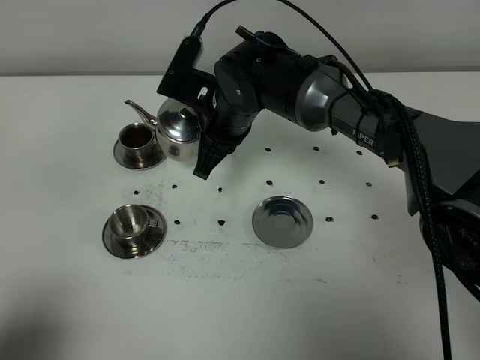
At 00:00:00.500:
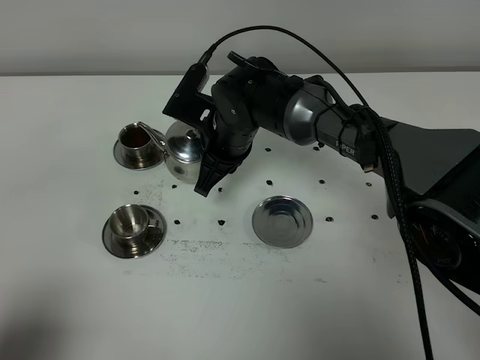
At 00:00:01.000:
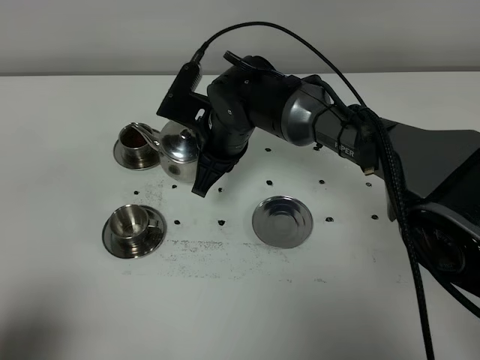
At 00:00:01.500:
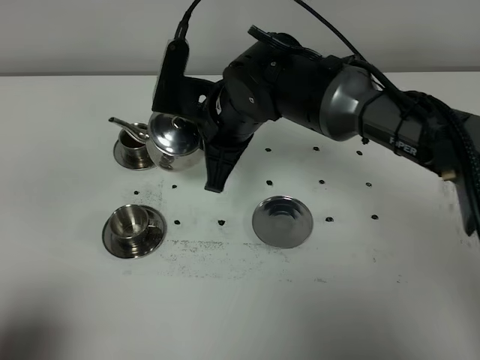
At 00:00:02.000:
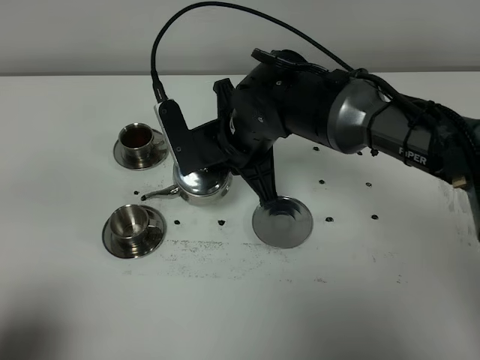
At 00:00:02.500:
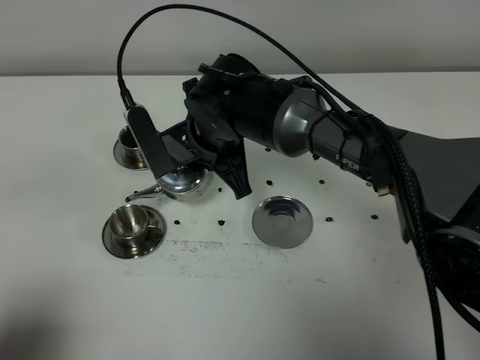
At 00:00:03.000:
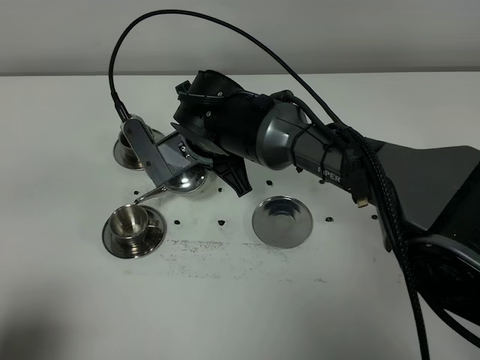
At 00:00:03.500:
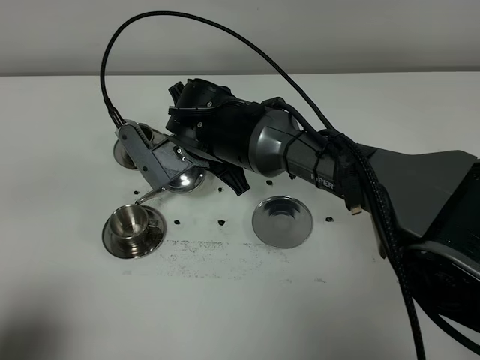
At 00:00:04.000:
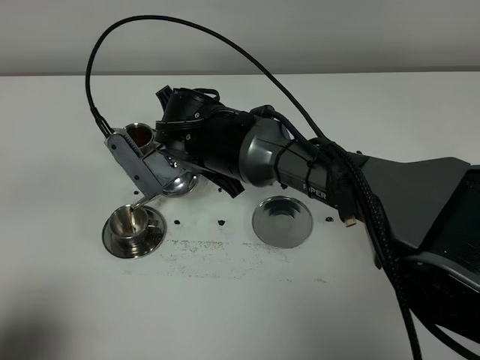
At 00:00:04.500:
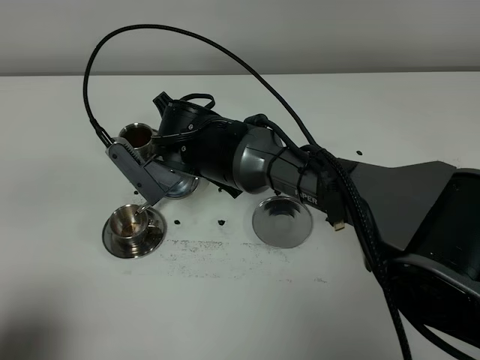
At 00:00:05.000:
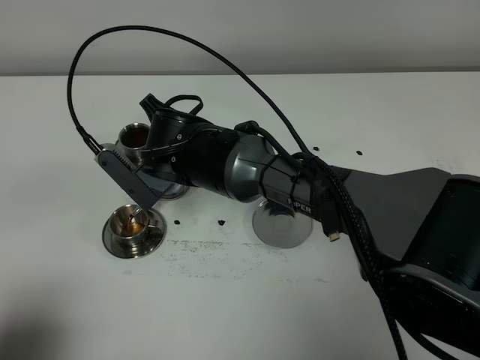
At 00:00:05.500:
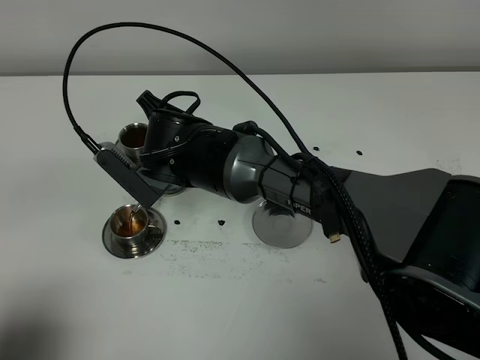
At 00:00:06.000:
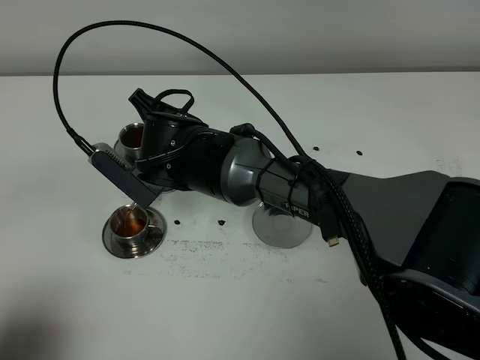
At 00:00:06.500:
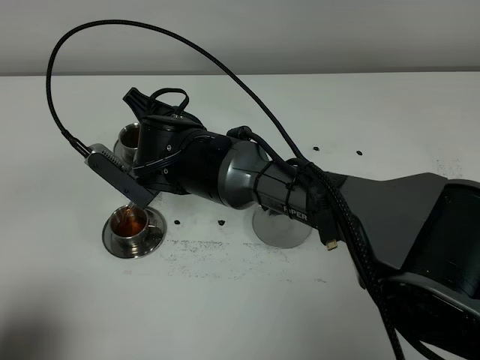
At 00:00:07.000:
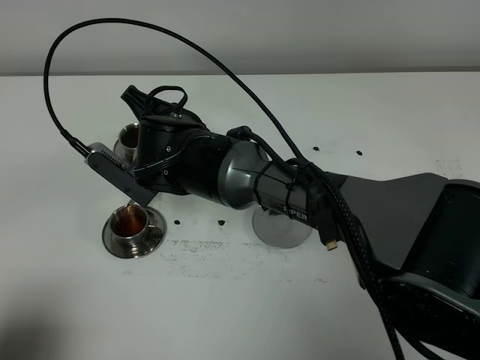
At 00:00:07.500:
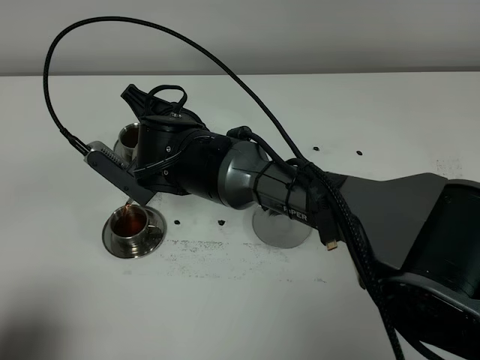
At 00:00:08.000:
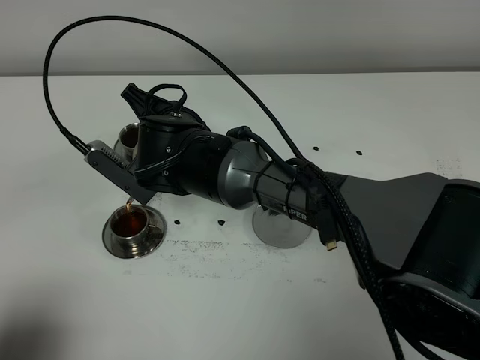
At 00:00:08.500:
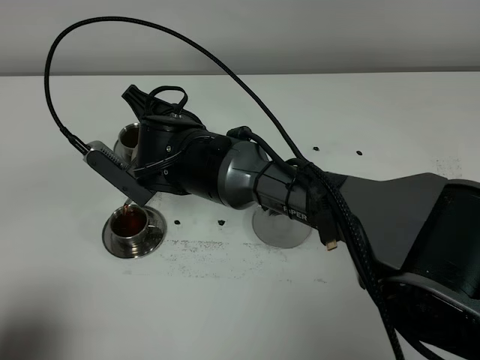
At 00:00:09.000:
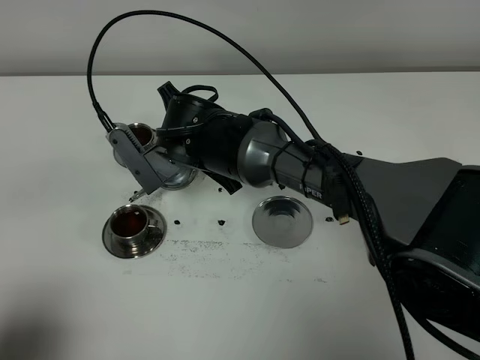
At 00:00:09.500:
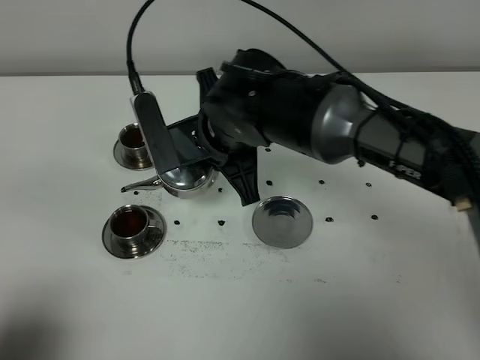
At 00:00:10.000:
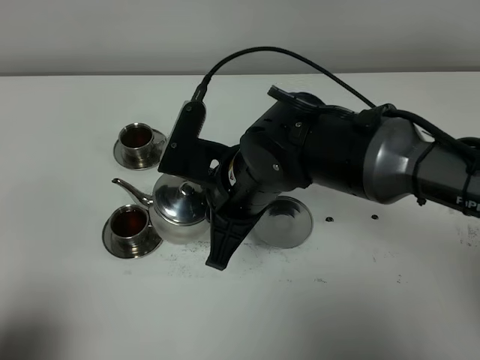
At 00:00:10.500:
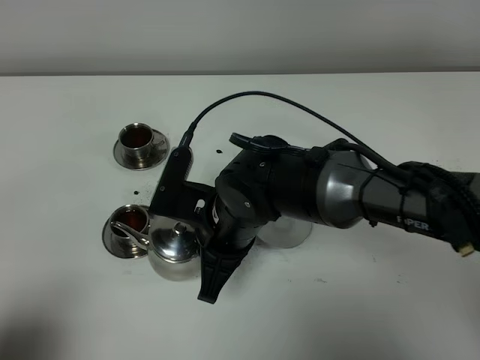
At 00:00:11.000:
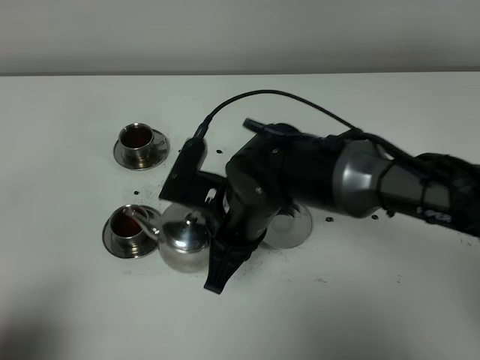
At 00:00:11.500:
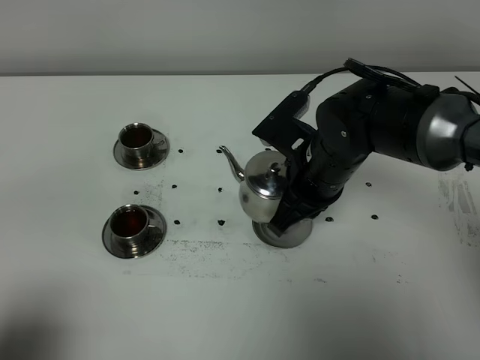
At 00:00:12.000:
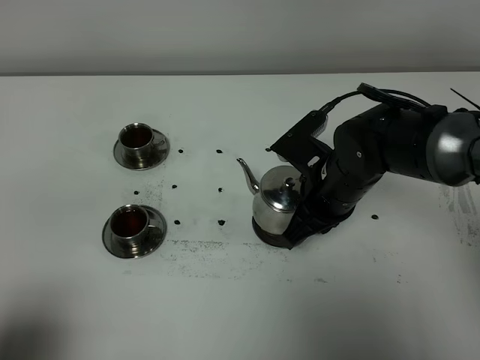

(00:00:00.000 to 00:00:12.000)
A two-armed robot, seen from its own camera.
Task of the whole recording: grasp the stainless steel teapot and pour the tea into the two stainless steel teacups one by one, put the stainless steel teapot back in its original place.
Step, 00:00:00.000 - 00:00:09.000: Pour tea into the teacup with the right gripper.
00:00:00.000 - 00:00:02.000: The right gripper changes place by approximately 5 cm.
00:00:02.000 - 00:00:04.000: The right gripper is displaced to the left by about 5 cm.
00:00:04.000 - 00:00:08.000: There are only small adjustments of the grippers.
00:00:08.000 - 00:00:10.000: The right gripper is displaced to the right and backward by roughly 10 cm.
00:00:10.000 - 00:00:12.000: The right gripper travels to the right and downward by approximately 10 cm.

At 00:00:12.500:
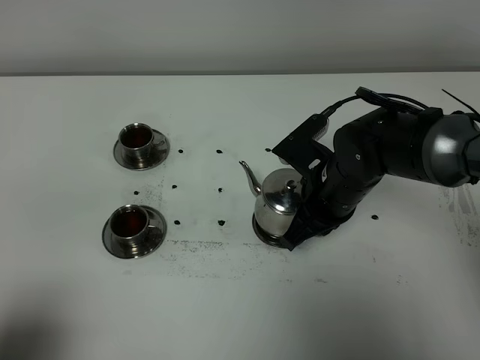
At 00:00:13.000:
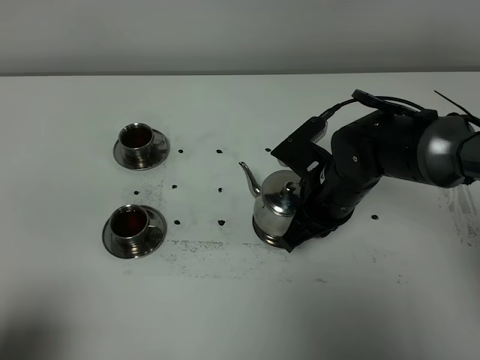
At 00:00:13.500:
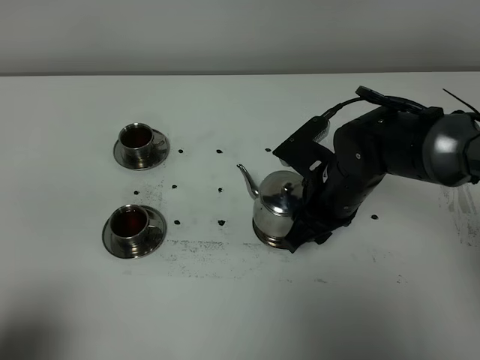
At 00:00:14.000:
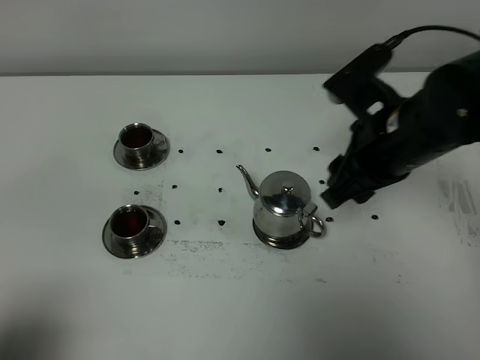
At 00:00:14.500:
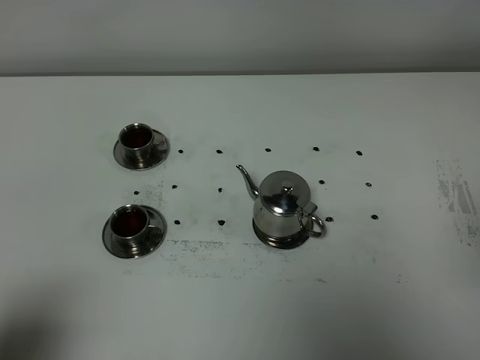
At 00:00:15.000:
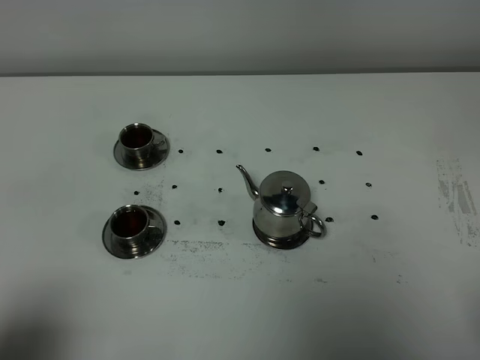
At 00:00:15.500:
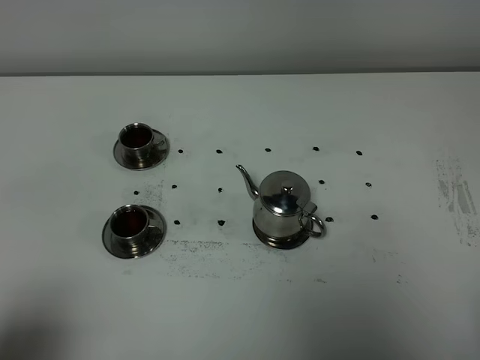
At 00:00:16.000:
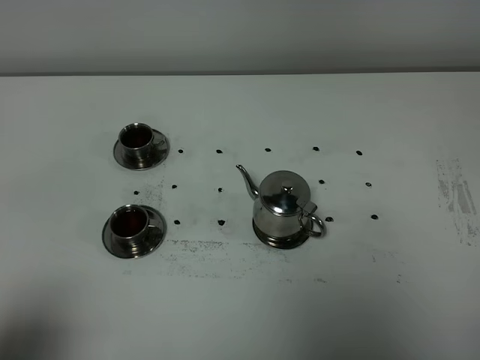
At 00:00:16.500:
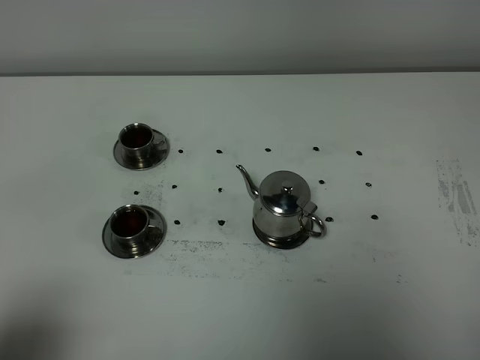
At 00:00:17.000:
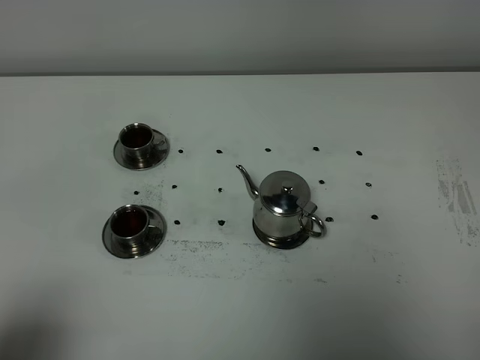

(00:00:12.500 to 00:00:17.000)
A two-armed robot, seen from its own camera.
Task of the whole recording: grasp the stainless steel teapot and pour the tea into the two stainless steel teacups one by one, put the stainless steel teapot back in its original place.
00:00:12.500 - 00:00:14.500: The right gripper shifts some 35 cm backward, upward and to the right, and opens up.
